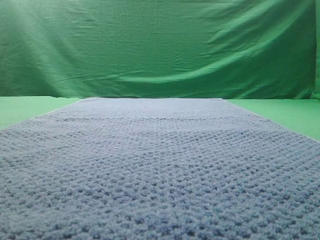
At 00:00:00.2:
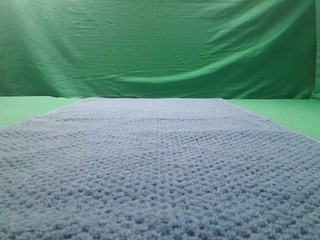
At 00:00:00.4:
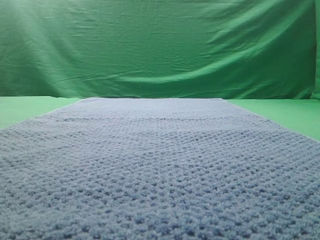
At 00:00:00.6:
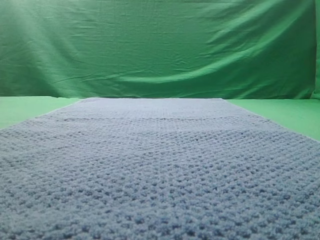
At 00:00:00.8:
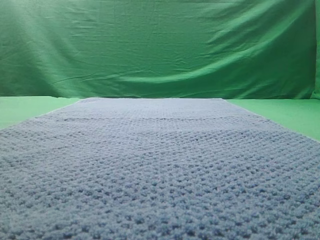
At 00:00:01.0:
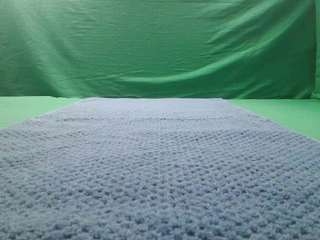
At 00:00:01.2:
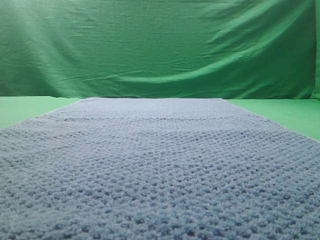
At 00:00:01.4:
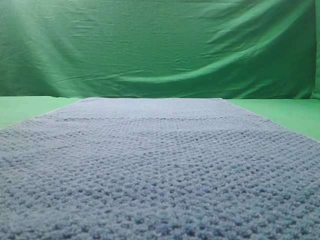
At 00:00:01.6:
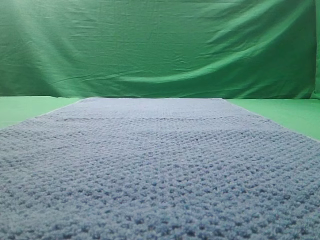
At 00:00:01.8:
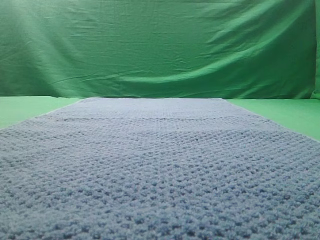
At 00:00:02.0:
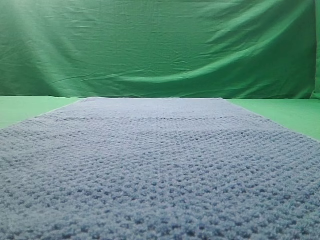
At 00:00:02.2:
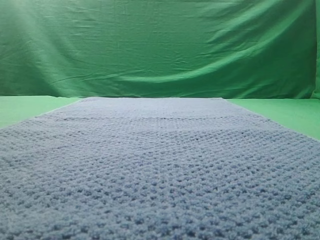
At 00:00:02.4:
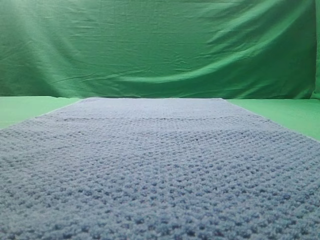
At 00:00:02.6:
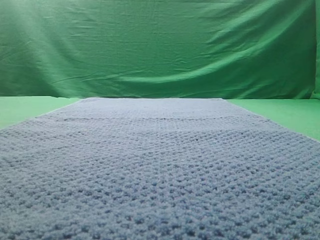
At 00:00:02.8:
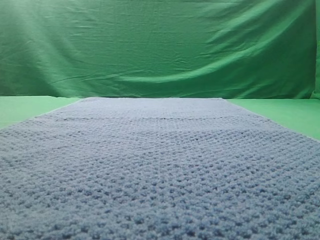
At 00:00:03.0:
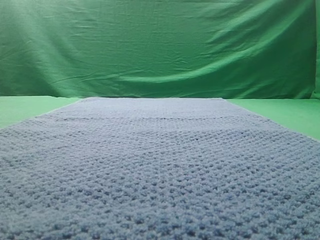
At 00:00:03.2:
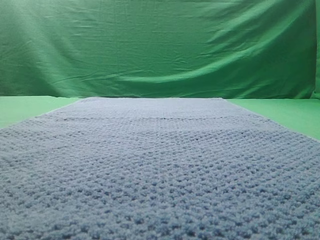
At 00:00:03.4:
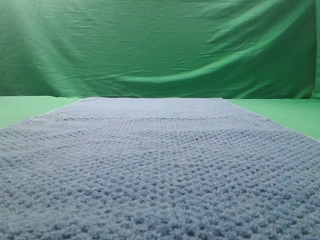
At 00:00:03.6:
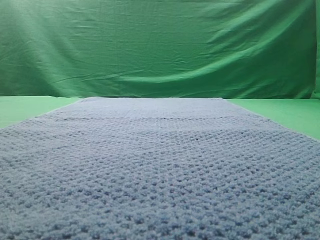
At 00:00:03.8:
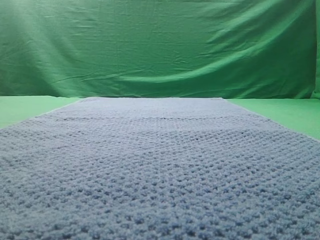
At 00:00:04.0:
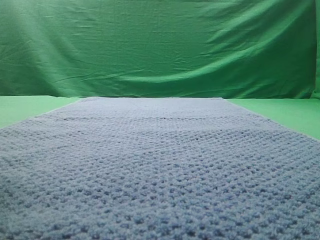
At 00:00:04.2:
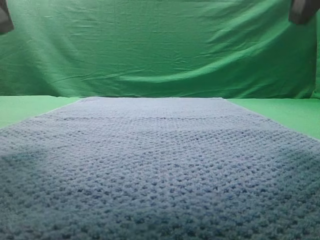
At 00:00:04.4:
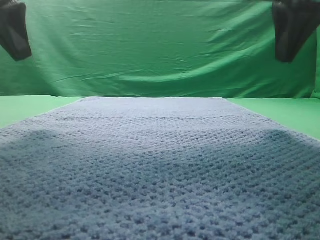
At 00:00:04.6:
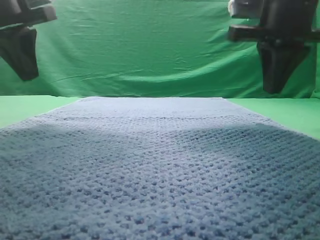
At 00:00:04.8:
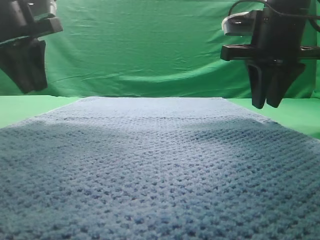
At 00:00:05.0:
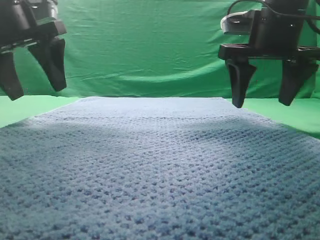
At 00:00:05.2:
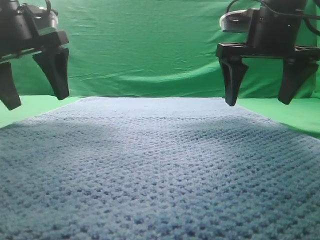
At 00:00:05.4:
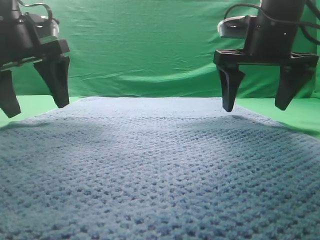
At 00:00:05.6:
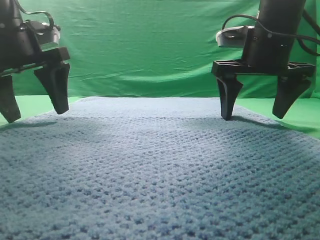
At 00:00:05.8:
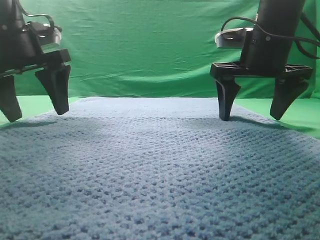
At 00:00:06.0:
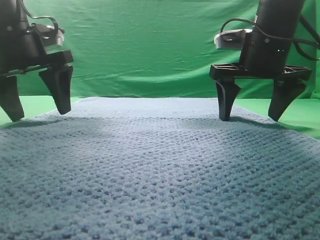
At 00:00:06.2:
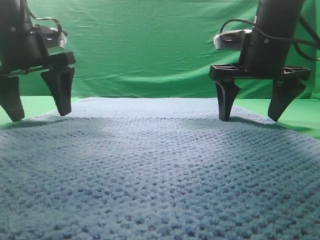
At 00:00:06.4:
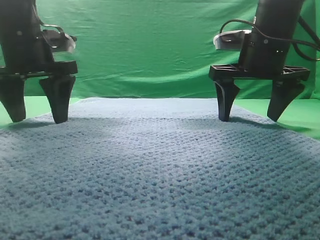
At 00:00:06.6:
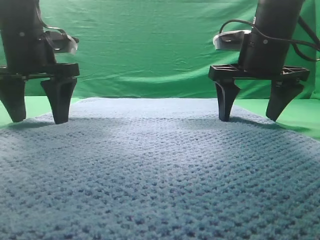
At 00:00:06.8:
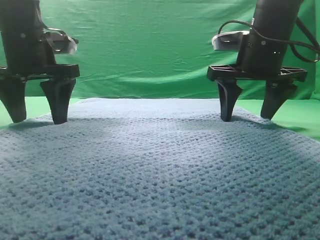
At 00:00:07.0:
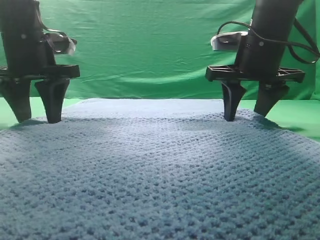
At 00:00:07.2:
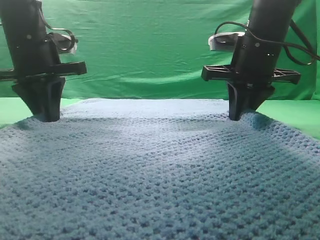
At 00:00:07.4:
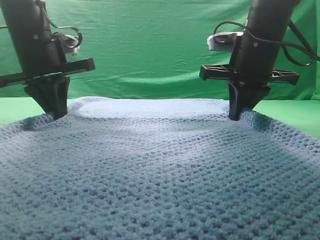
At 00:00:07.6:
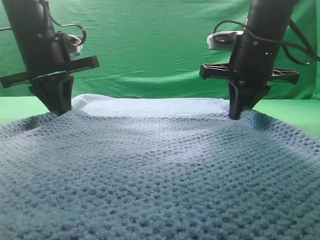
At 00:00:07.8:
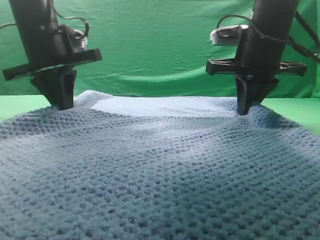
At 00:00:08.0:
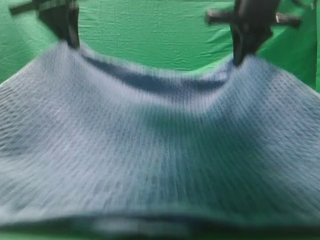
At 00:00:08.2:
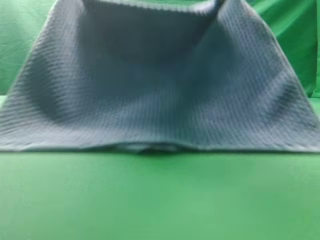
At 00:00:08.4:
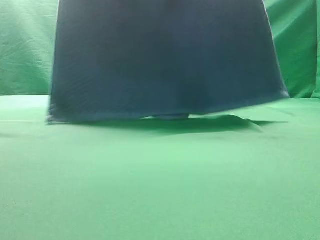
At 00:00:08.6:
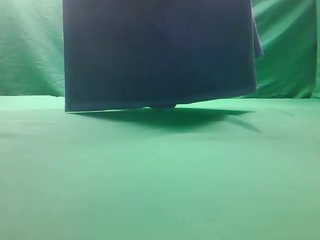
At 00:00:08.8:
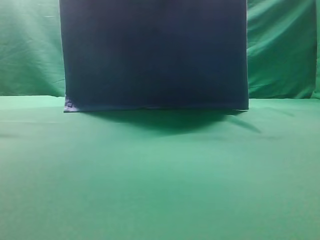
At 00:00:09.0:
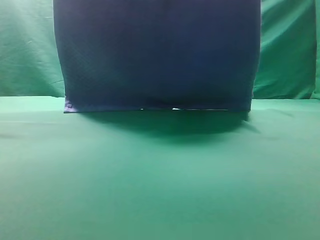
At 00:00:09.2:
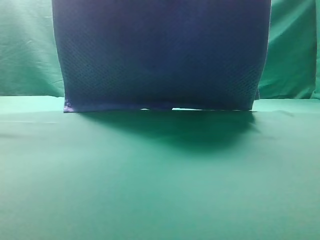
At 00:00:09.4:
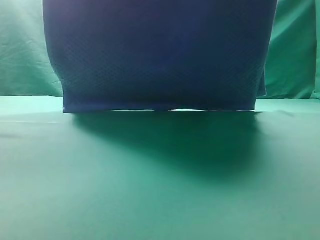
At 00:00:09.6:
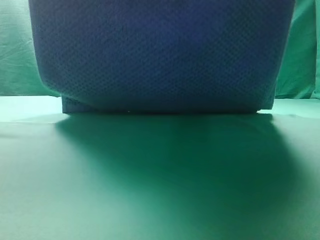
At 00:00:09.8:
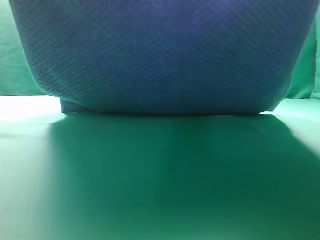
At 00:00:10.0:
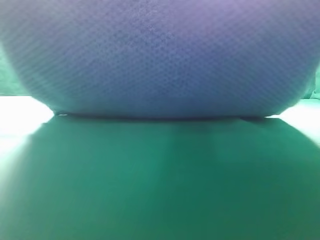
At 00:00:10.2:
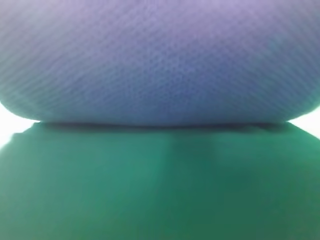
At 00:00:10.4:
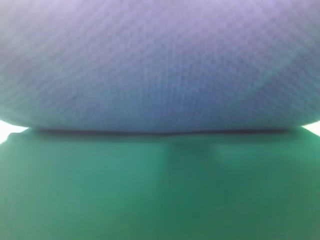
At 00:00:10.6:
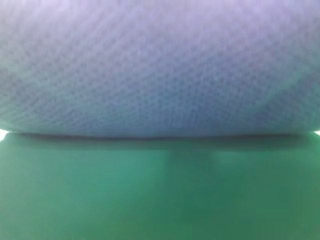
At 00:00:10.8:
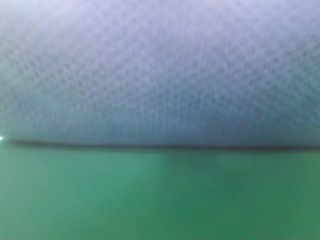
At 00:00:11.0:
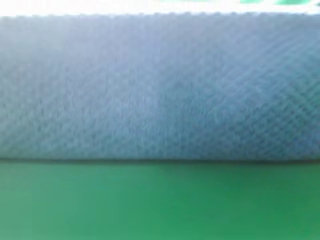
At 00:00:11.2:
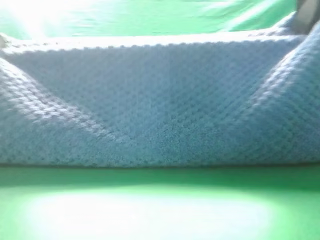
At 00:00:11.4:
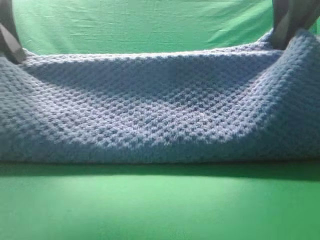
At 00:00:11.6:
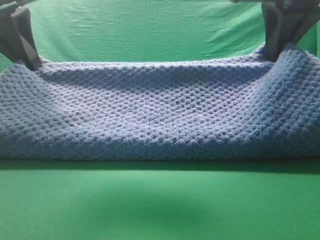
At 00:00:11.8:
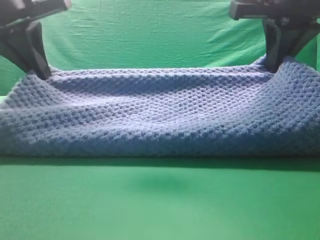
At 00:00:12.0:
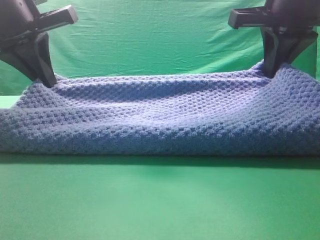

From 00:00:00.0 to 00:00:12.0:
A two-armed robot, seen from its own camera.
Task of the whole recording: fold the towel on the table twice.
Step, from 00:00:00.0 to 00:00:08.4: pick up the towel with two arm.

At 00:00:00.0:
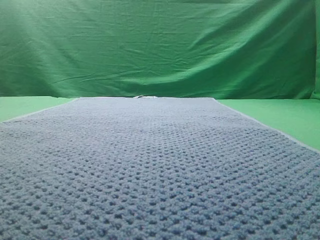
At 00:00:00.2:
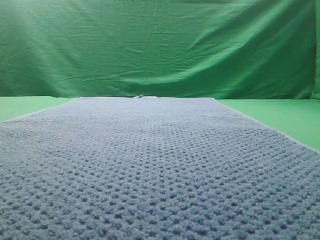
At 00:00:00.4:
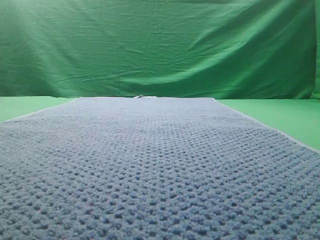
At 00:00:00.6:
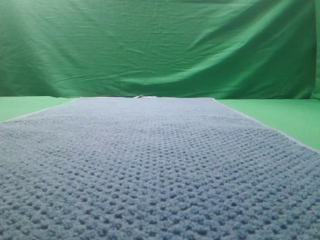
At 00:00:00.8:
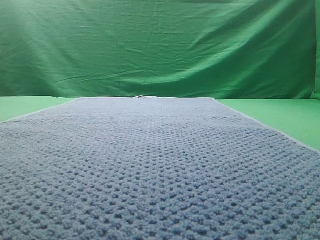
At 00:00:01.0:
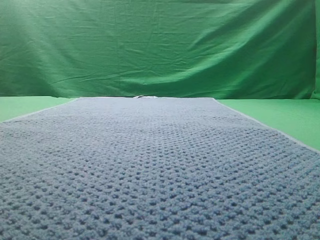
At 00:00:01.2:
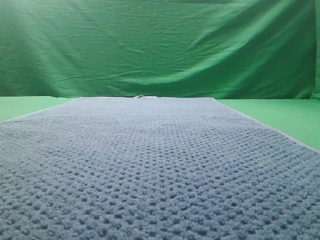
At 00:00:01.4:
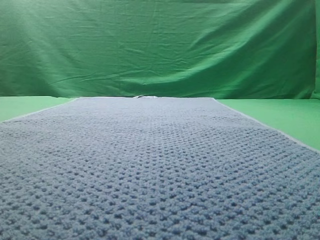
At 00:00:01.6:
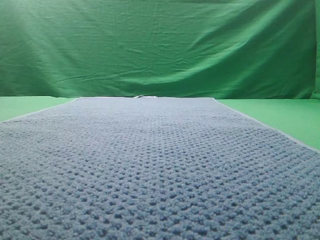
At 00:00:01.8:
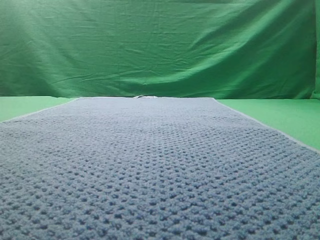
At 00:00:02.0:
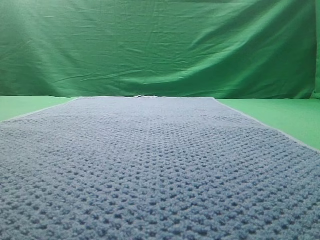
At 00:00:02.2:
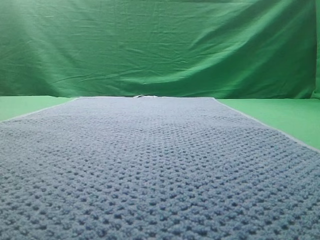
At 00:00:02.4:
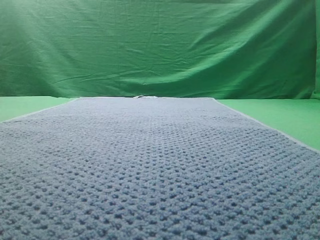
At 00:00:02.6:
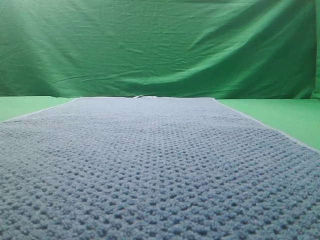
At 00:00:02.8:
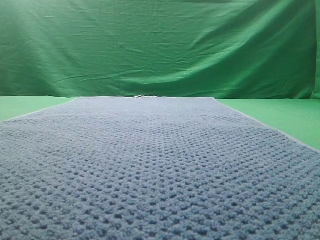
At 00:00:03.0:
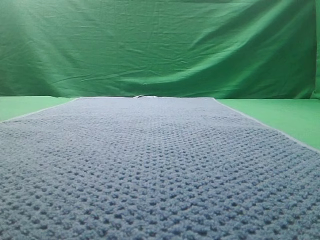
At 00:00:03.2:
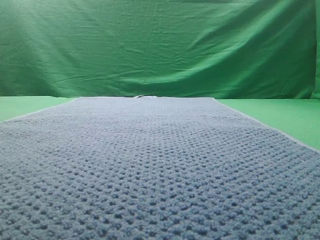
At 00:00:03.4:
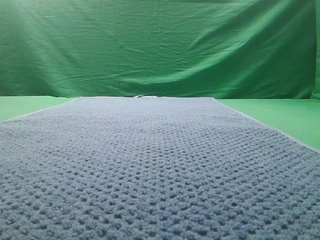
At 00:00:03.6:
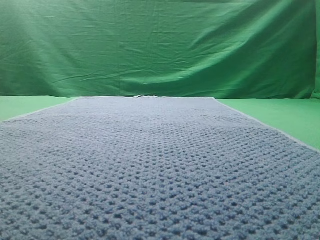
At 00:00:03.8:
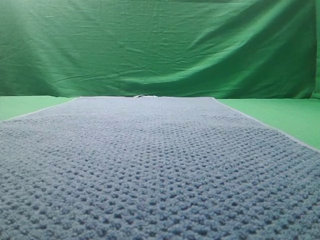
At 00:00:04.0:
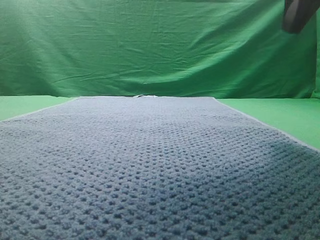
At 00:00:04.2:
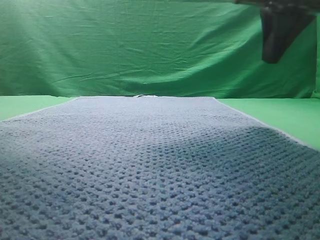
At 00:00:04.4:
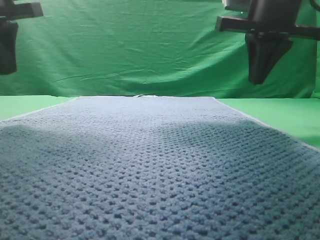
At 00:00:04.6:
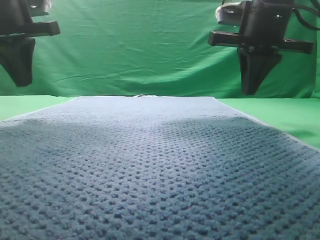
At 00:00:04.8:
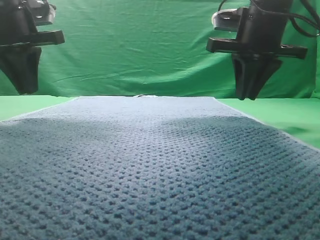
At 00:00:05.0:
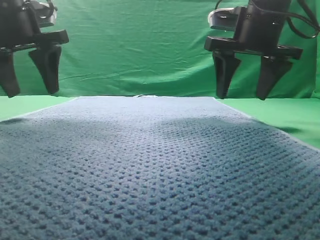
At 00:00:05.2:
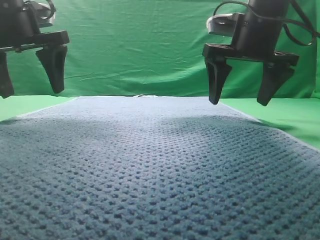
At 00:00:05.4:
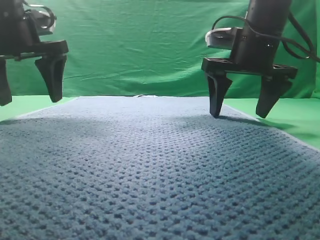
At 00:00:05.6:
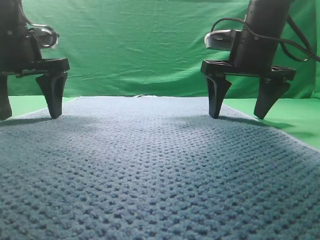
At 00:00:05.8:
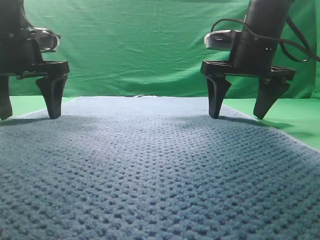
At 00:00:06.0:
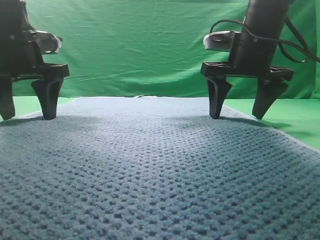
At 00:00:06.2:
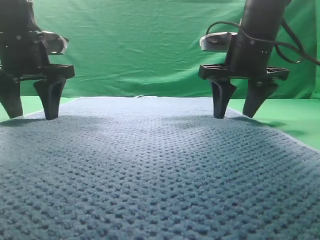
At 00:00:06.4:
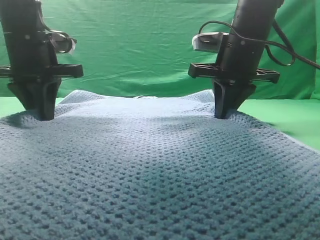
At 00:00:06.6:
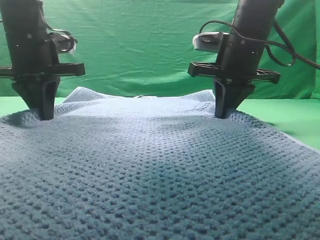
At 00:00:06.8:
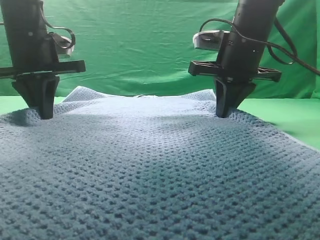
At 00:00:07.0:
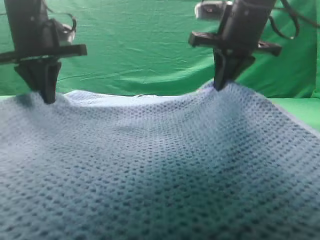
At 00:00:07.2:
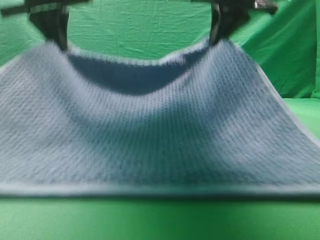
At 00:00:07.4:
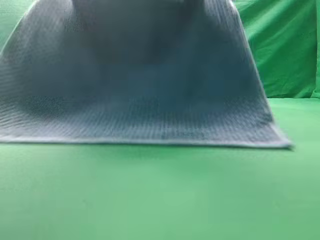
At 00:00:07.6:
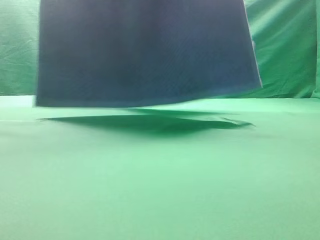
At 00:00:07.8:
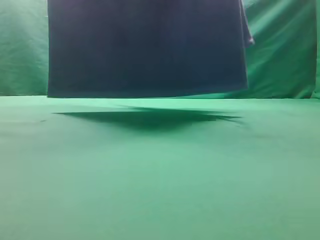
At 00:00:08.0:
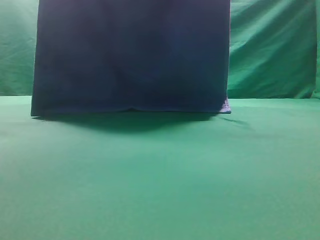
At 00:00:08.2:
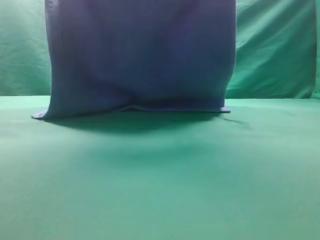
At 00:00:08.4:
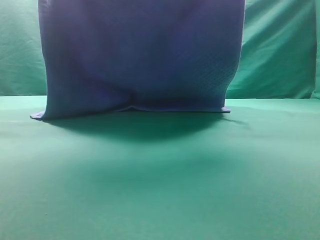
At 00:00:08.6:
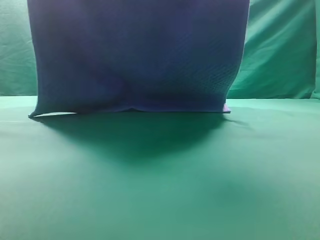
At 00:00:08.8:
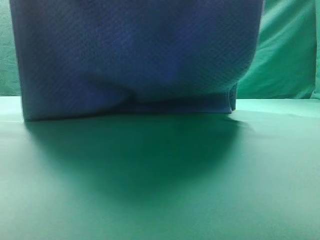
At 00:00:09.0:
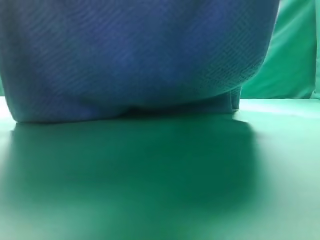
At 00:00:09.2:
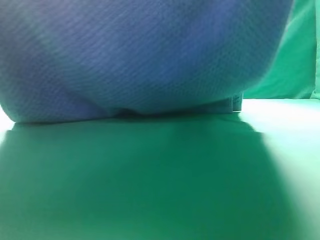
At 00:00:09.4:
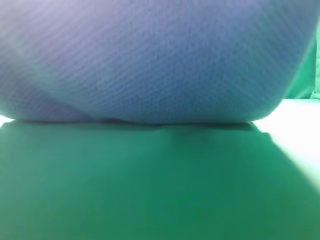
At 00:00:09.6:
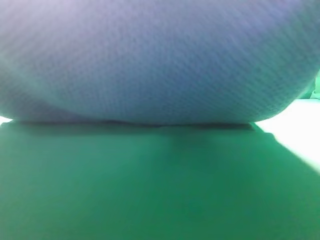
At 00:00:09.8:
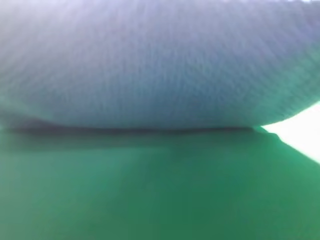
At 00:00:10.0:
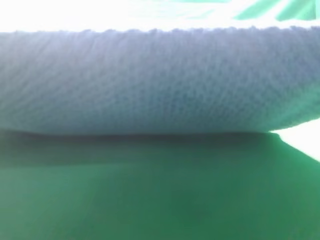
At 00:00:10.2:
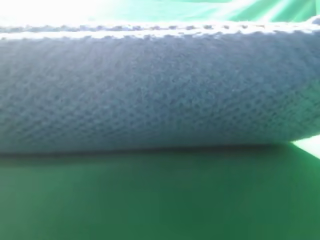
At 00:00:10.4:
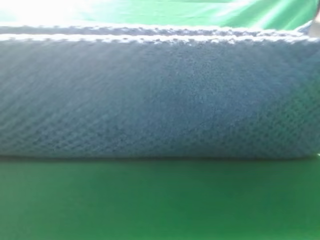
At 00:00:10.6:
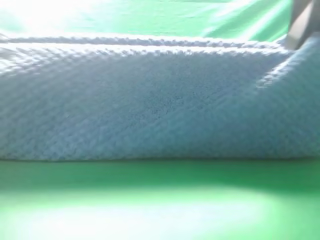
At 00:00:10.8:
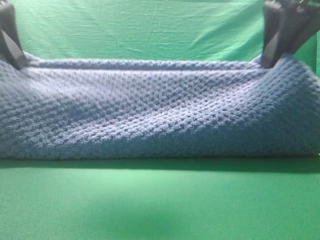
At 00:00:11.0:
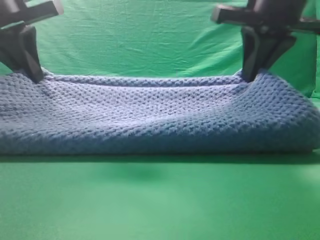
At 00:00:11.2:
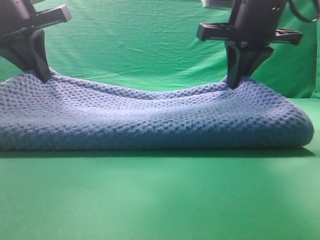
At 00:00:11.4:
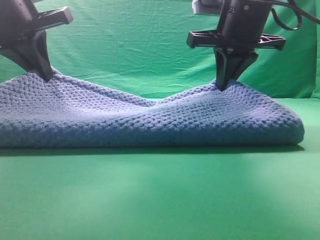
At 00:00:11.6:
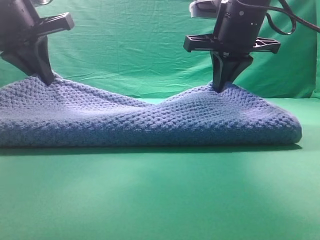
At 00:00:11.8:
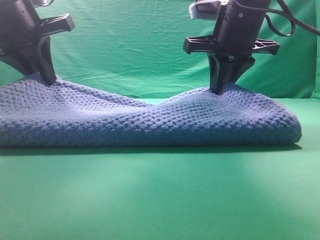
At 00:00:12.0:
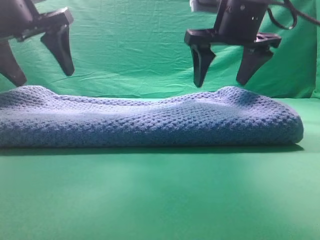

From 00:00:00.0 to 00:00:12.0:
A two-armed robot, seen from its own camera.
Task of the whole recording: fold the towel on the table twice.
Step, from 00:00:00.0 to 00:00:07.6: pick up the towel with two arm.
